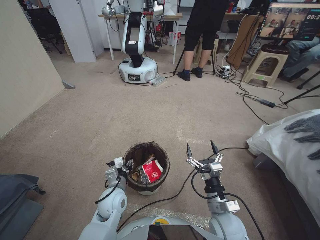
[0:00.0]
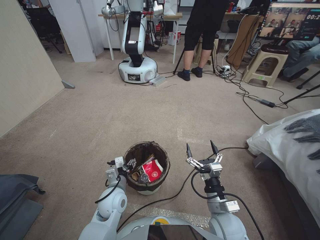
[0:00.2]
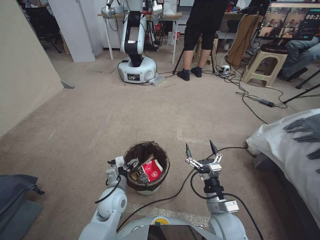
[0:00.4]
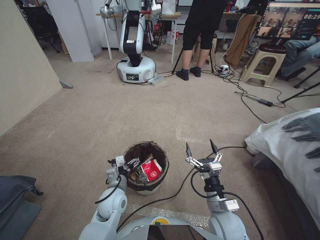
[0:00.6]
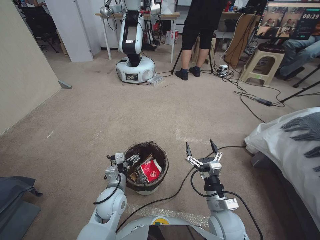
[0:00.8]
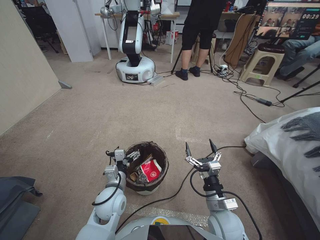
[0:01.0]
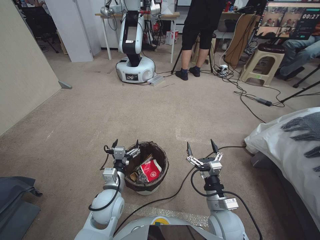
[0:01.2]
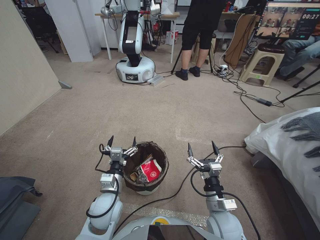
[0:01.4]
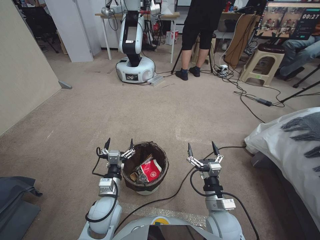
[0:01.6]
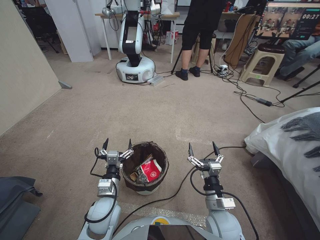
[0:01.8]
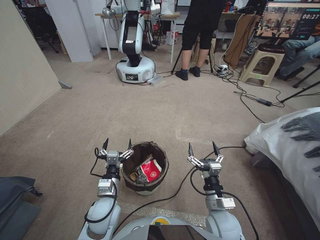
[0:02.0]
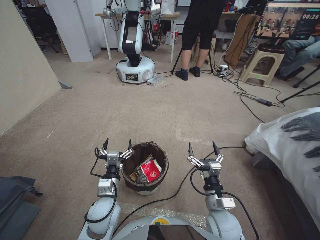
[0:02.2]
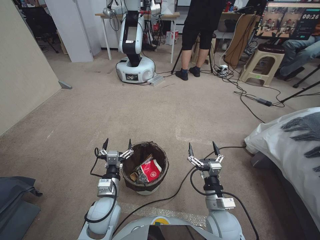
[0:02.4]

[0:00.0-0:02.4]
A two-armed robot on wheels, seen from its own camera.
Task of the whole recording: Pick up the trash bin, then pick up the garbage from the floor and place it into the trash bin.
0:00.0 to 0:01.2: The left gripper opens.

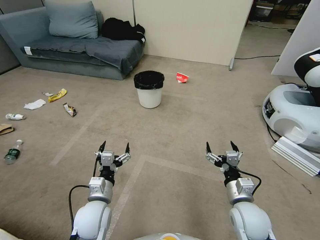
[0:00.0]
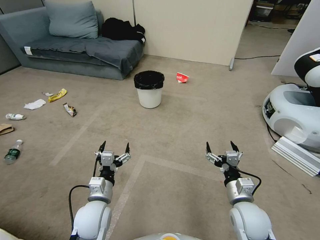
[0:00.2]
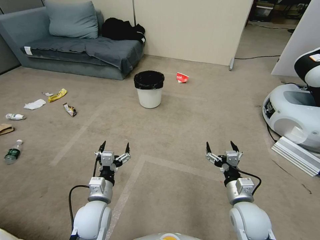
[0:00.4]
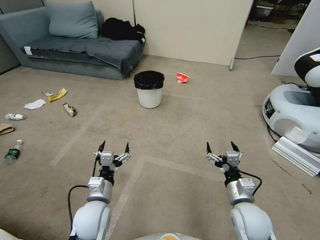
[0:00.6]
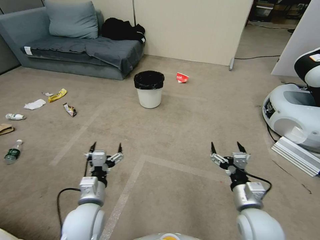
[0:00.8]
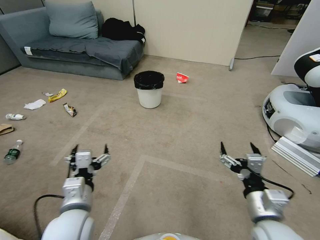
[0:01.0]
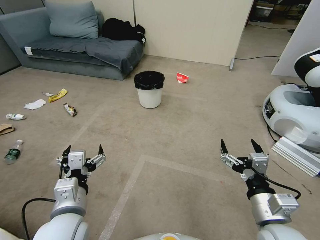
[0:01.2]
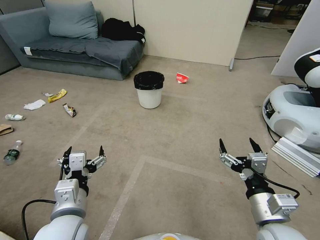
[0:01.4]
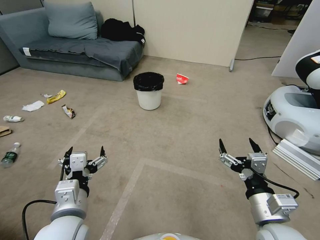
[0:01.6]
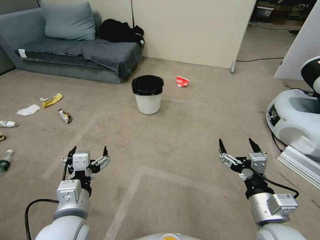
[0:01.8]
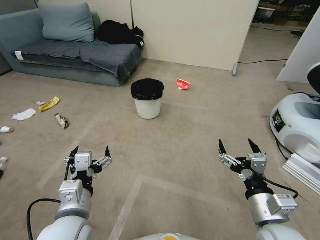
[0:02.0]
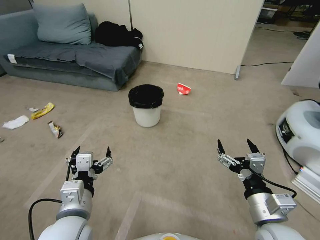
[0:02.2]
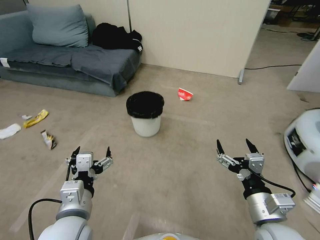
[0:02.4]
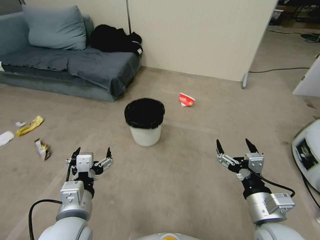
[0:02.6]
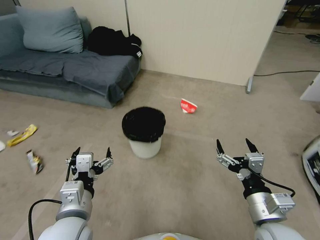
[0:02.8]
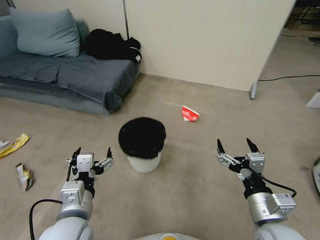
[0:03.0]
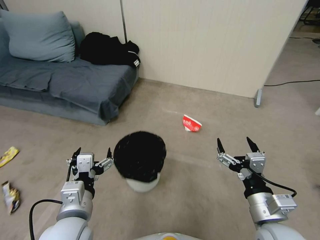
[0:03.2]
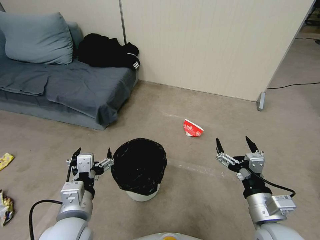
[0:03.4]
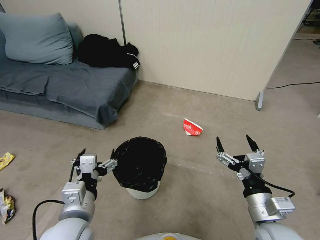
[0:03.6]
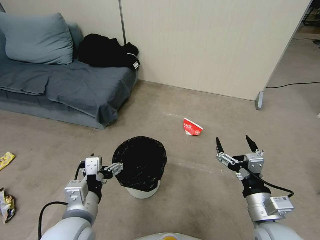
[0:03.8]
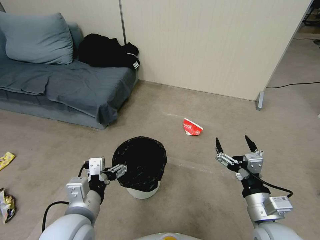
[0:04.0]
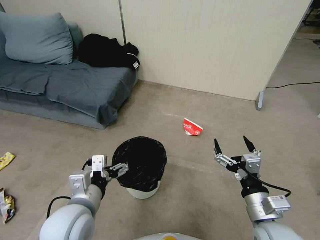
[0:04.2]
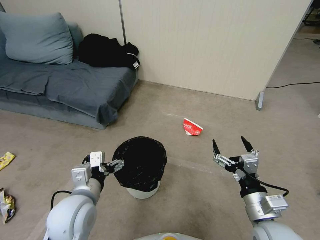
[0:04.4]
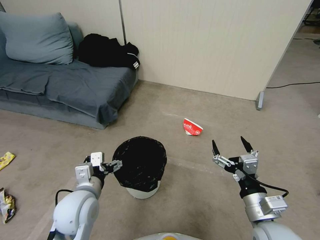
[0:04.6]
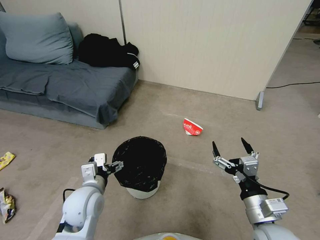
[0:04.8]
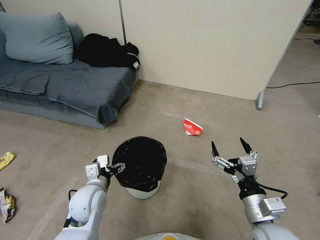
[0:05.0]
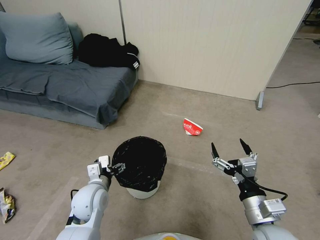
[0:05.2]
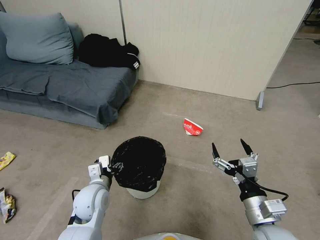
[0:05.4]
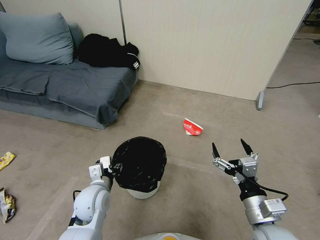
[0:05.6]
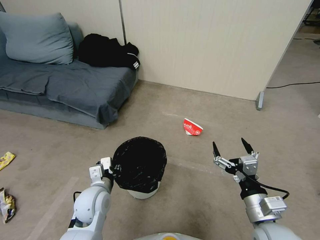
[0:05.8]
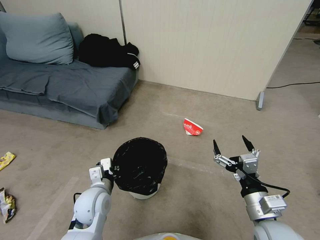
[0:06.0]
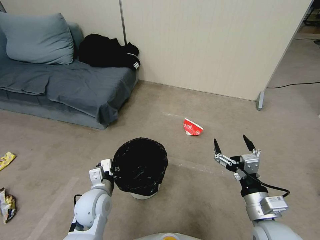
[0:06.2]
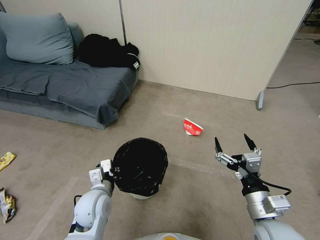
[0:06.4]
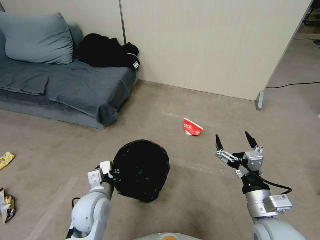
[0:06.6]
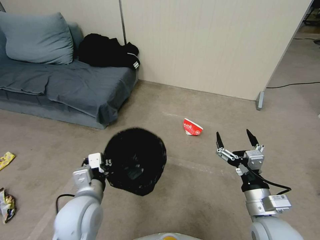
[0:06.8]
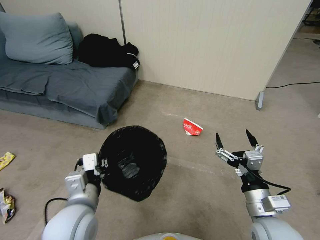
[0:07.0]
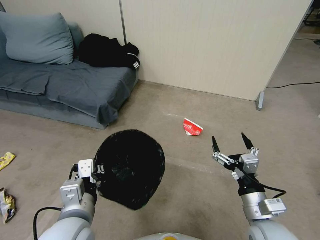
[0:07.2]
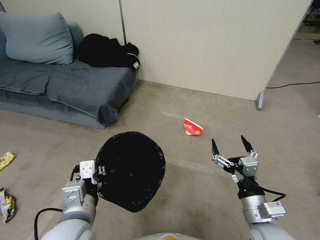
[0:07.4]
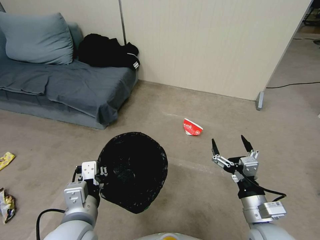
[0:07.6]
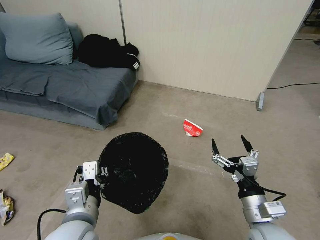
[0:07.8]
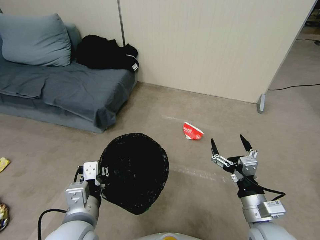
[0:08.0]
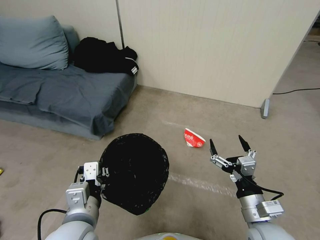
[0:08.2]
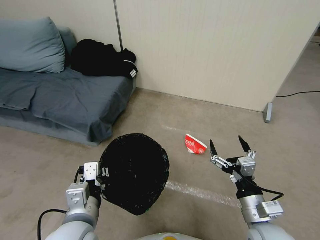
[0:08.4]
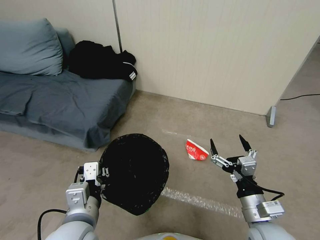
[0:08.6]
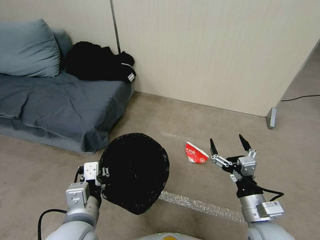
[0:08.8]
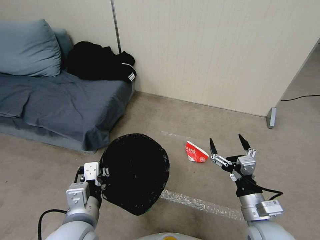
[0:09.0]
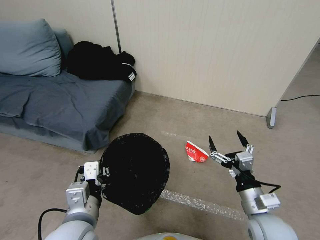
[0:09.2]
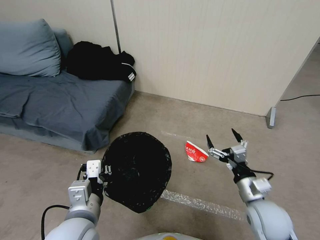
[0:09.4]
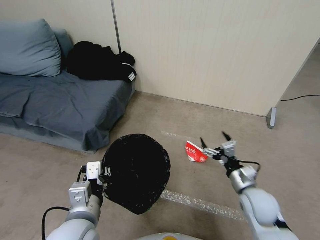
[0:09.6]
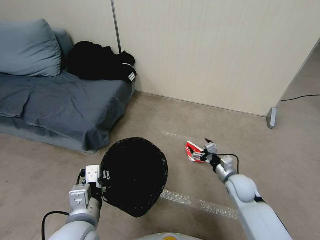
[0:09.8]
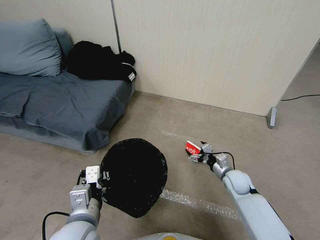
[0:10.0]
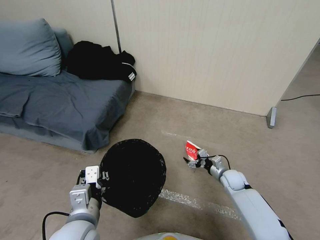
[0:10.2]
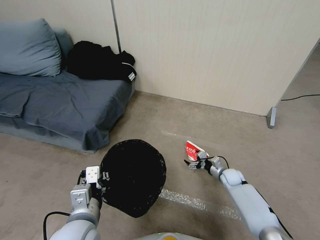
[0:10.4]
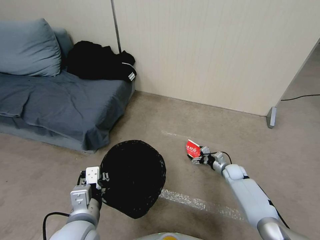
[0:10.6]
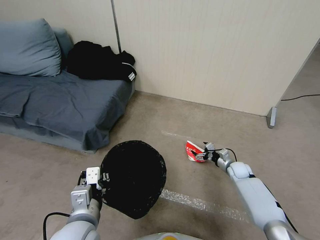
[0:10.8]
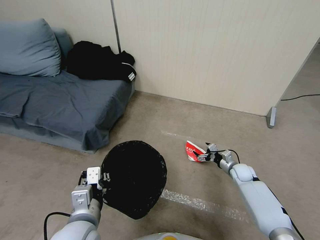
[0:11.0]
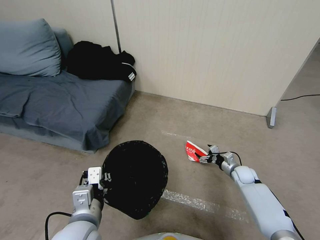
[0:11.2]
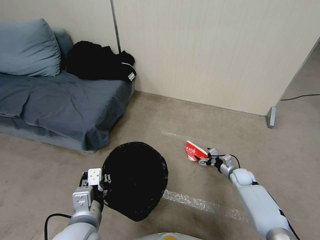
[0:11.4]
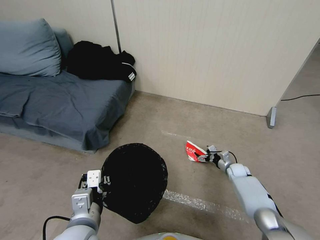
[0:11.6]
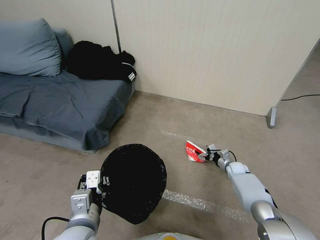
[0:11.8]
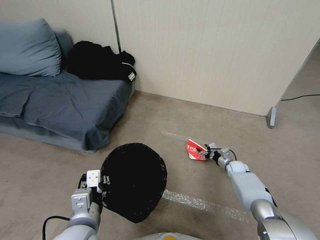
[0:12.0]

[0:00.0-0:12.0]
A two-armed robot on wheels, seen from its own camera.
Task of the whole recording: Pick up the trash bin, then pick up the garbage from the floor and place it into the trash bin.
0:04.4 to 0:06.0: The left gripper is displaced downward and forward by some 10 cm, and closes up.
0:06.0 to 0:07.6: The left gripper goes some 15 cm upward and backward.
0:09.0 to 0:10.4: The right gripper shifts some 35 cm forward and downward.
0:10.4 to 0:12.0: The right gripper changes place by approximately 5 cm.

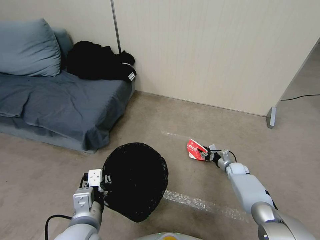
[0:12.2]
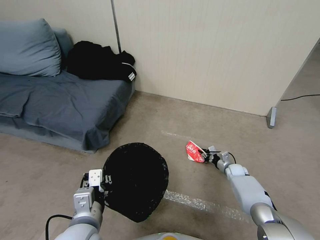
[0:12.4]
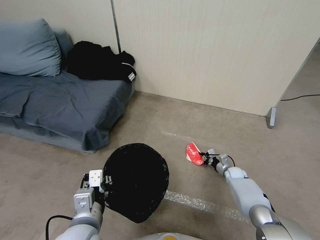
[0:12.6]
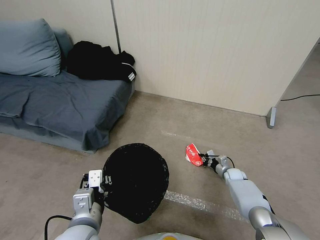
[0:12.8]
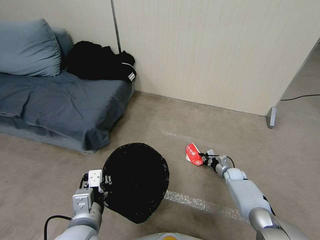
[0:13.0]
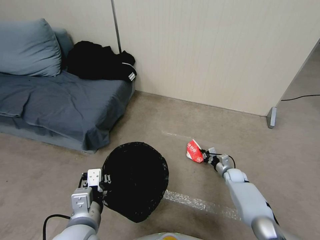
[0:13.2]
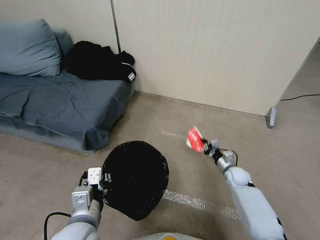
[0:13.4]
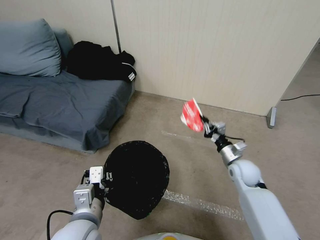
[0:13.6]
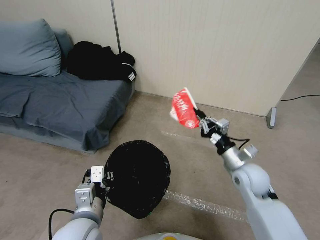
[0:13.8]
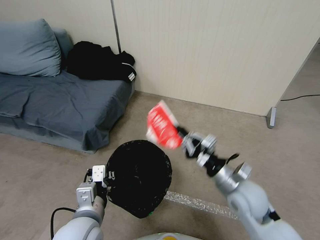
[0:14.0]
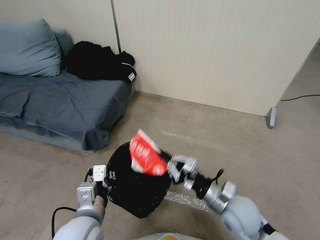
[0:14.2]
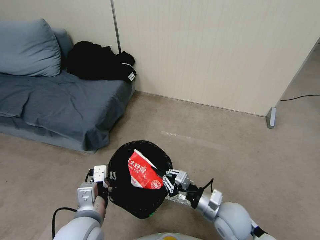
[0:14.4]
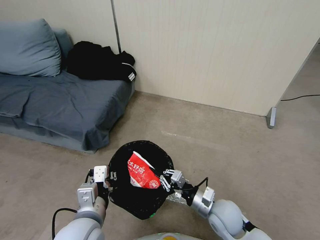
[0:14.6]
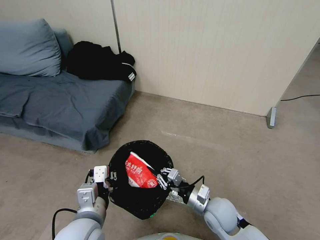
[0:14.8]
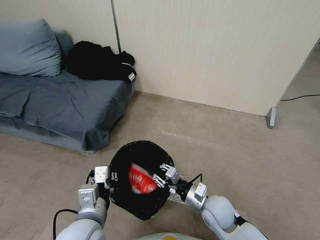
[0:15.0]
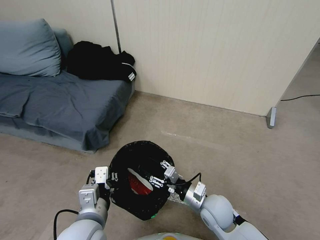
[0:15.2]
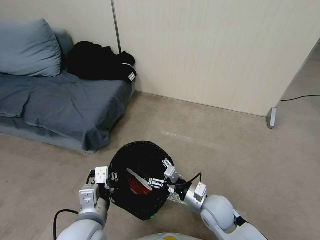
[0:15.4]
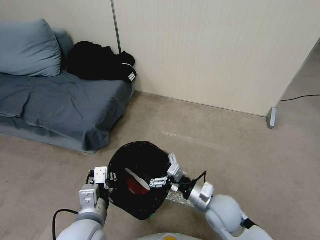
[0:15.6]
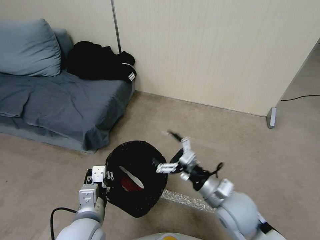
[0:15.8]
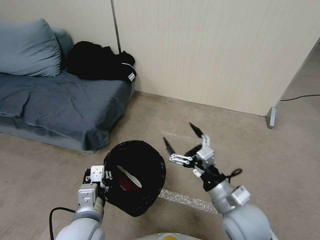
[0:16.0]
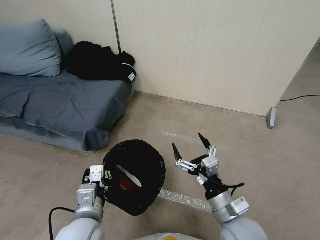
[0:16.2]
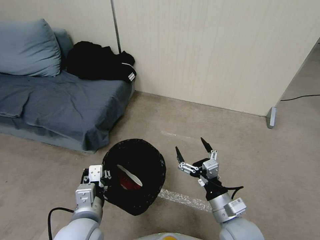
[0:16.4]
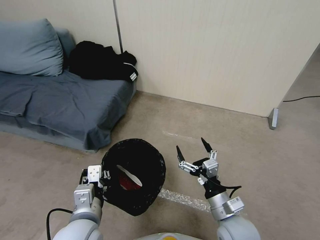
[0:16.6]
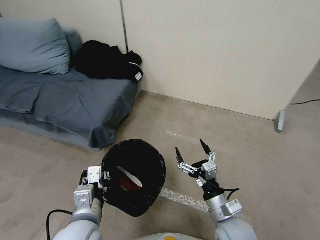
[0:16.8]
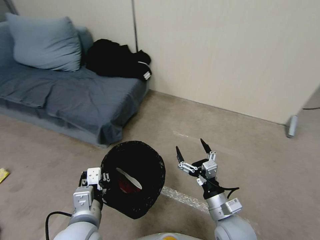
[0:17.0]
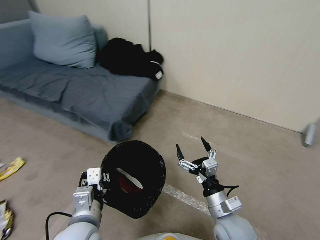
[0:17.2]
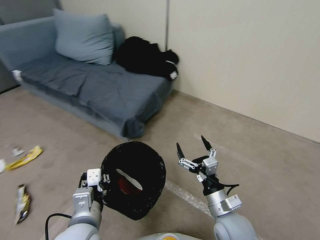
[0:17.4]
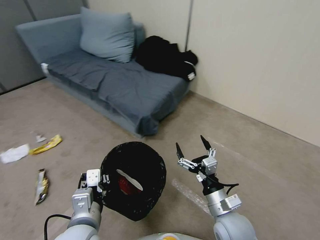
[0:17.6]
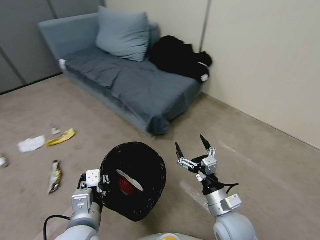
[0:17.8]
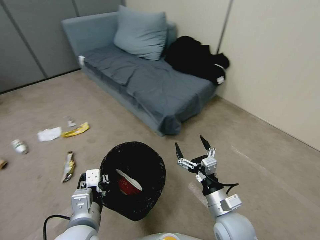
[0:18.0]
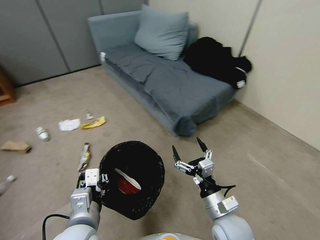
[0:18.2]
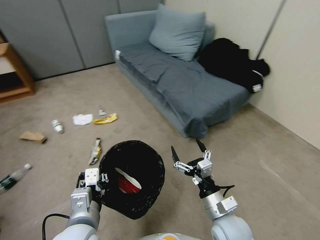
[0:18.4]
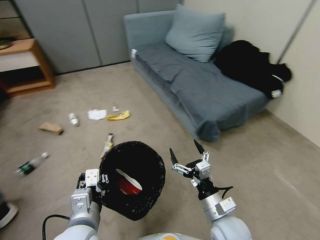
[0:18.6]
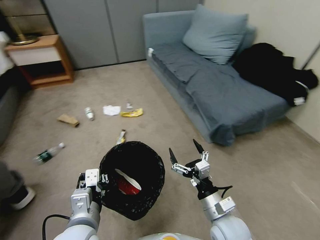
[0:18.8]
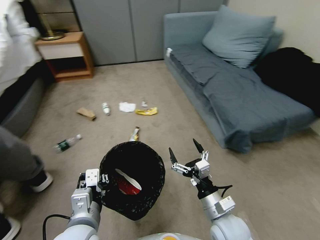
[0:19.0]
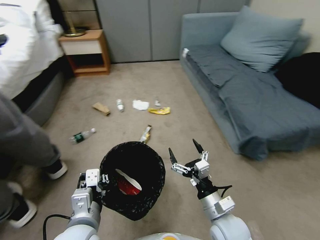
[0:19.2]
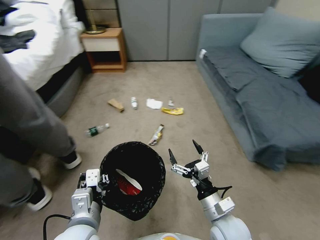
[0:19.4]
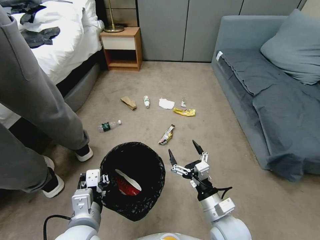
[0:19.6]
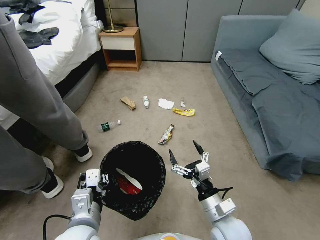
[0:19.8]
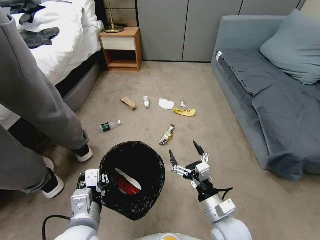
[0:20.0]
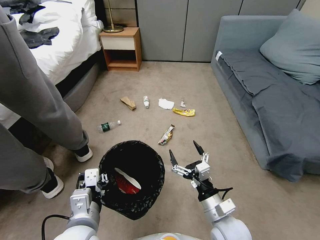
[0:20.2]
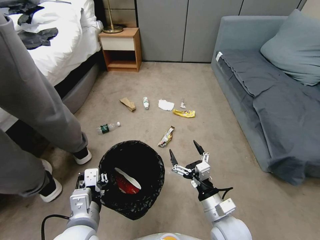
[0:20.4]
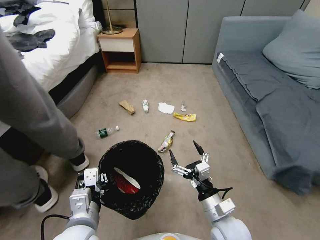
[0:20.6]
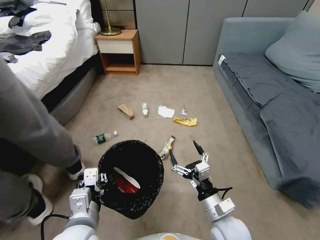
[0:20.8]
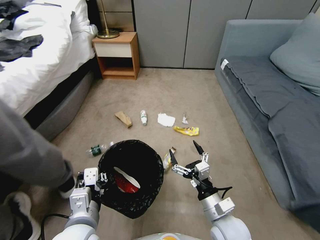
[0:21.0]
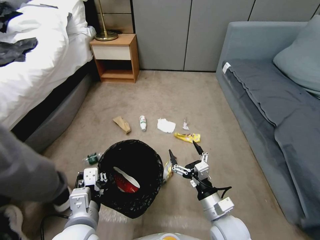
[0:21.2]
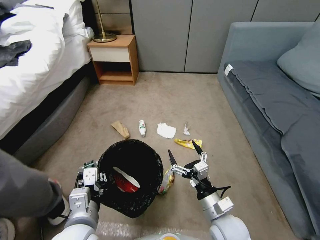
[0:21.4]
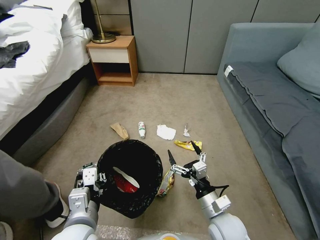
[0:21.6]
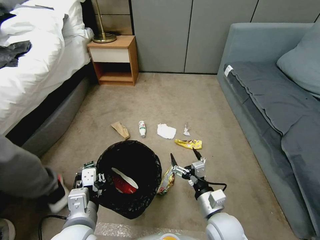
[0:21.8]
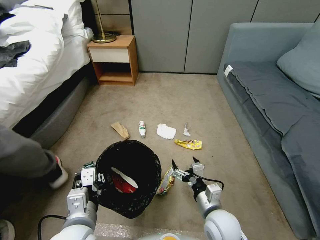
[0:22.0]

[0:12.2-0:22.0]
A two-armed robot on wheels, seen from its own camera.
Task of the whole recording: Pick up the trash bin, then pick up the garbage from the floor and place it into the trash bin.
0:12.2 to 0:13.6: The right gripper goes about 20 cm upward, backward and to the left, and closes its fingers.
0:13.6 to 0:15.0: The right gripper travels to the left and backward by approximately 20 cm.
0:15.0 to 0:16.4: The right gripper travels backward and upward by about 10 cm, and opens its fingers.
